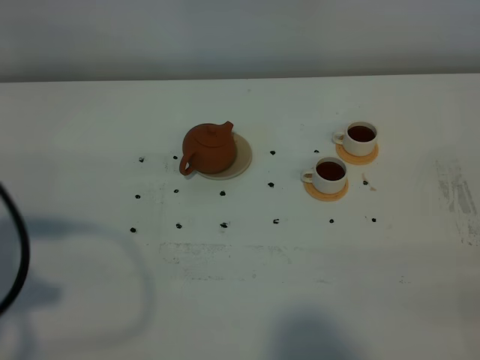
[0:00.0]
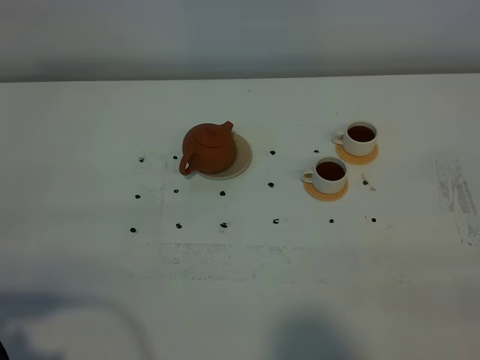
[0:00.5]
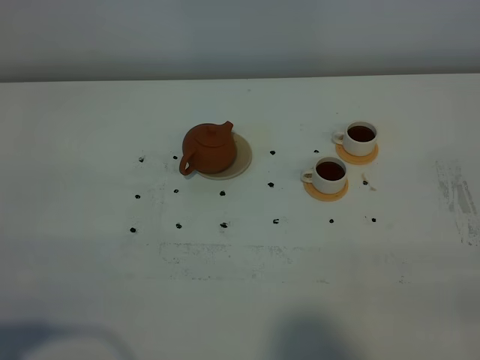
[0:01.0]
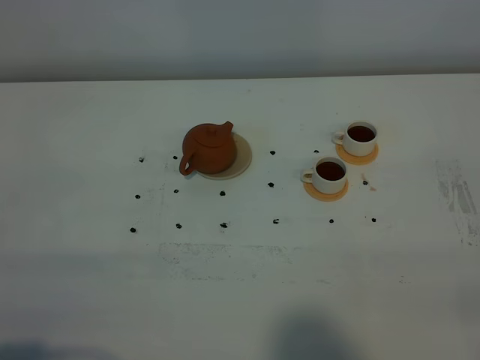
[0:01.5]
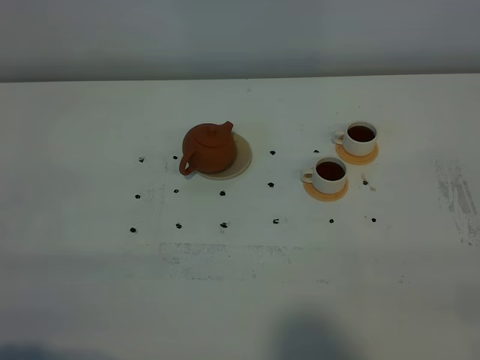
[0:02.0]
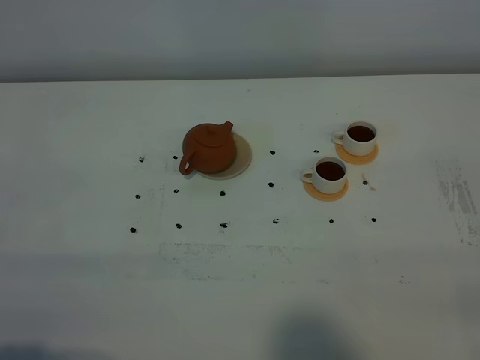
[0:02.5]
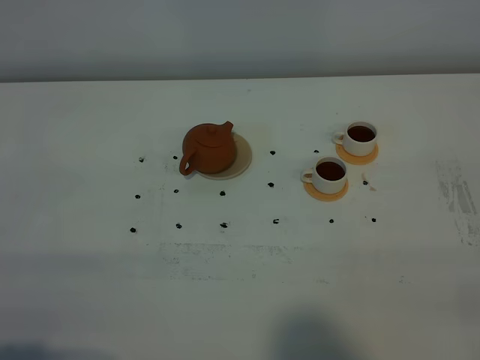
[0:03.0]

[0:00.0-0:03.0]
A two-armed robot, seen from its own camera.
Task of the whole recording: grasp the brown teapot and pour the tea into the two white teacups one by one, put the brown teapot back in its original place.
0:00.0 to 0:01.5: The left gripper shifts roughly 15 cm backward and downward.
0:01.5 to 0:03.0: Both grippers stay put.
